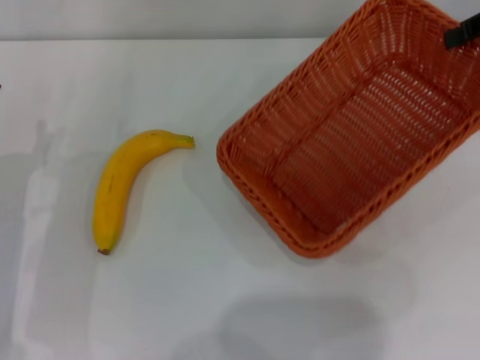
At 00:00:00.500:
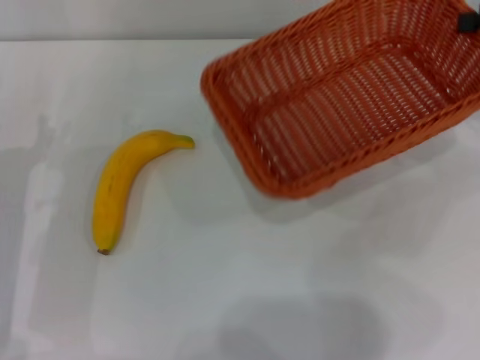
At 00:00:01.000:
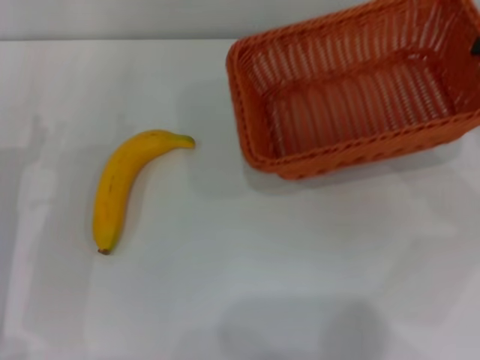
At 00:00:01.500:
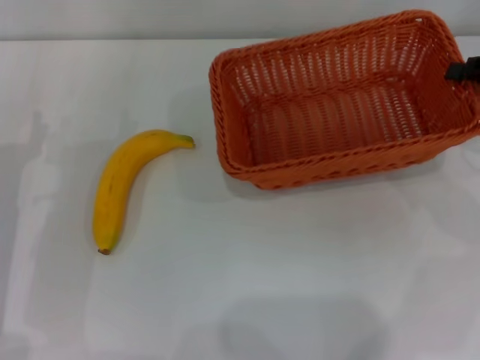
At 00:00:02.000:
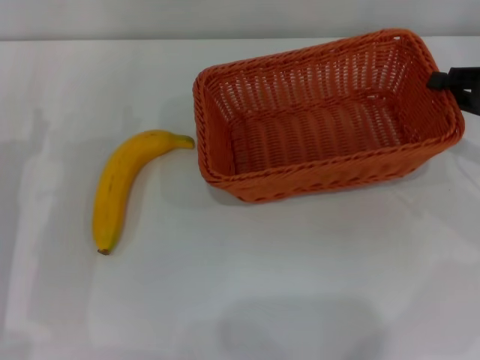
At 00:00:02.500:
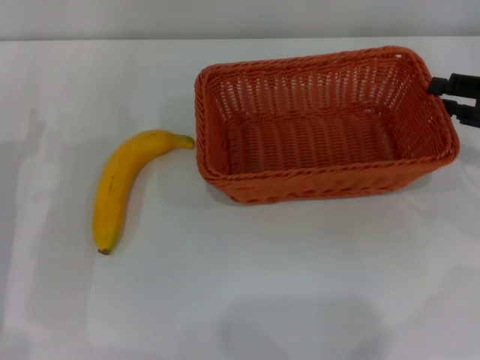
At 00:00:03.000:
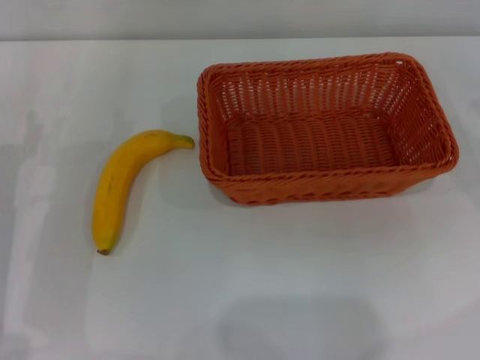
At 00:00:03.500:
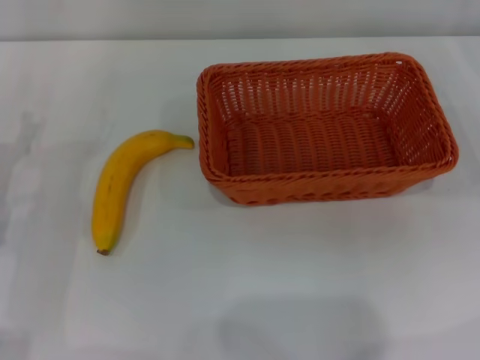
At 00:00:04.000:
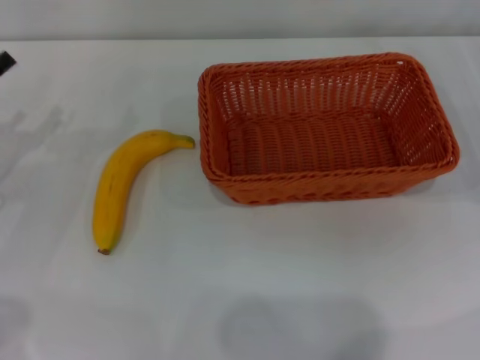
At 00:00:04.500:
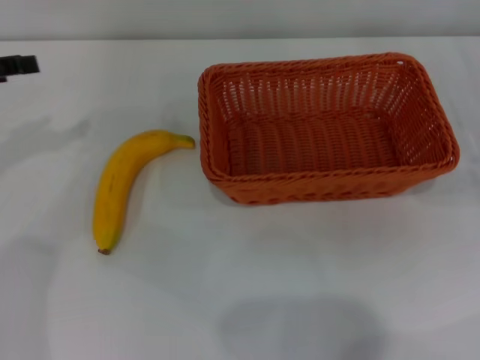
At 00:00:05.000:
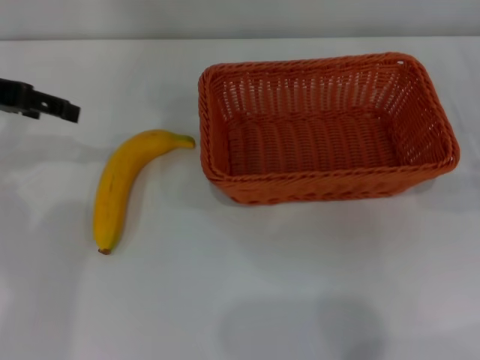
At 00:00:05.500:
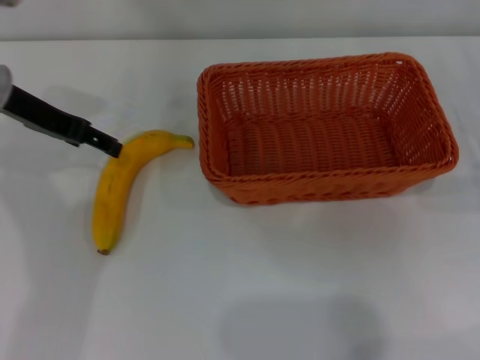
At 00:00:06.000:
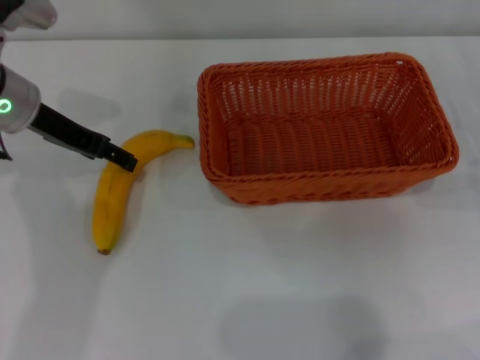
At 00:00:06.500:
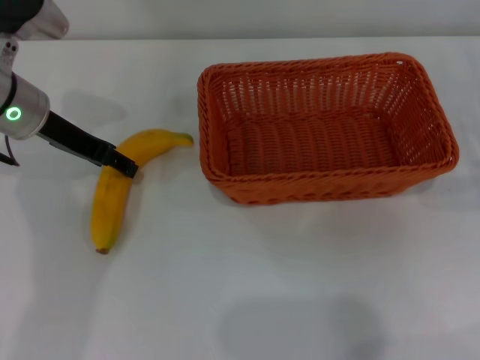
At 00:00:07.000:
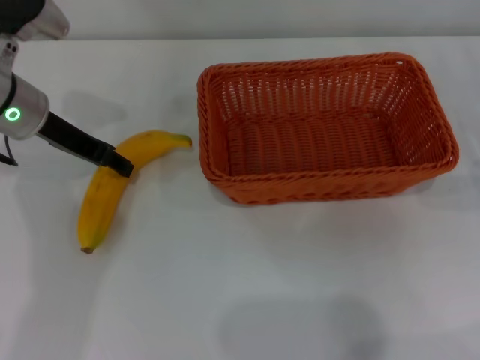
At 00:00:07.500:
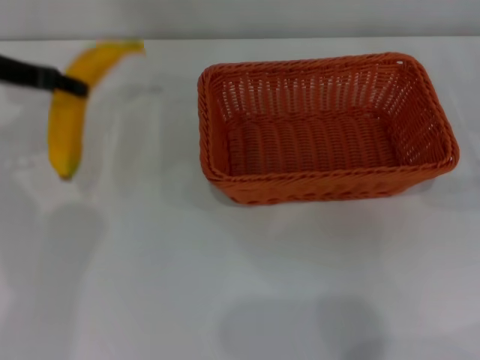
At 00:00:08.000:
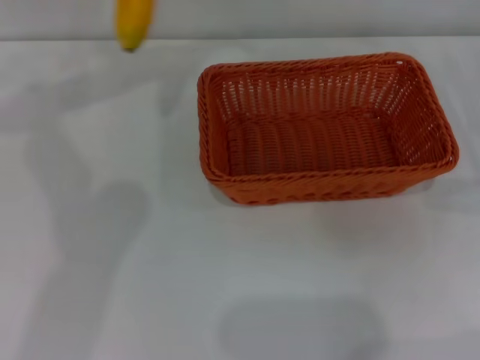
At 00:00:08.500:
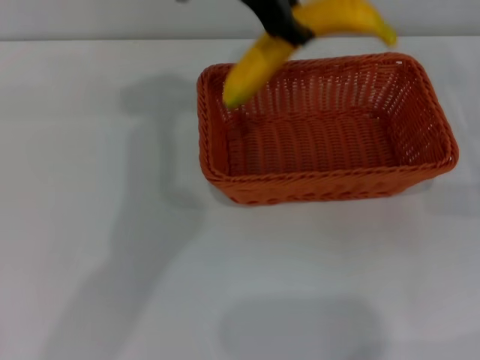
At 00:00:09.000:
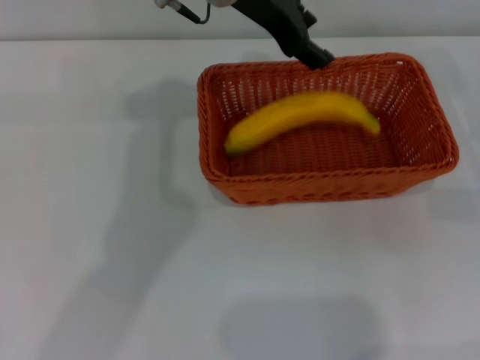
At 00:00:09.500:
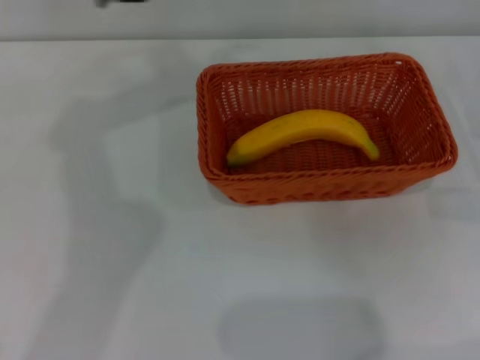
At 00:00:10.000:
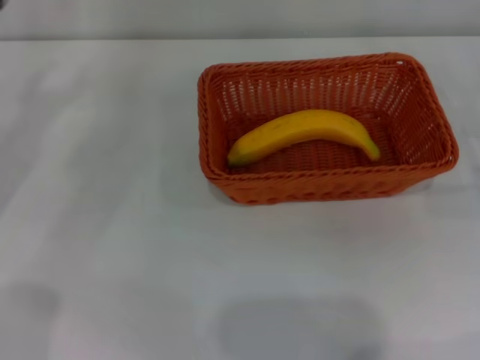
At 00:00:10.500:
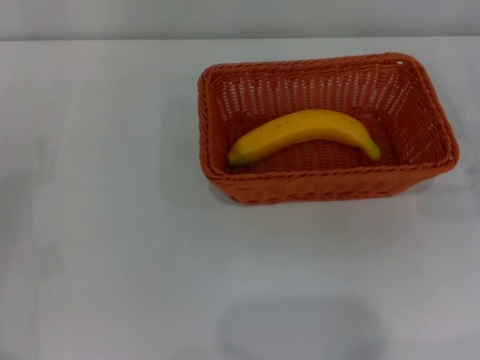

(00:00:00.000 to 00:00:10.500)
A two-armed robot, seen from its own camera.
Step, 00:00:00.000 - 00:00:02.500: Place the light basket in the center of view with the right gripper.
Step, 00:00:03.000 - 00:00:07.000: Pick up the banana with the left gripper.
Step, 00:00:07.500 - 00:00:09.000: Place the banana into the light basket with the left gripper.
00:00:00.000 - 00:00:02.000: The right gripper heads downward and backward, covering about 15 cm.
00:00:02.000 - 00:00:04.000: The right gripper shifts approximately 10 cm to the right and downward, and opens up, while the left gripper goes roughly 5 cm to the left.
00:00:04.000 - 00:00:06.500: The left gripper heads to the right, forward and upward, covering approximately 15 cm.
00:00:06.500 - 00:00:08.500: The left gripper moves to the right and upward, roughly 20 cm, and closes up.
00:00:08.500 - 00:00:10.500: The left gripper heads to the left, downward and backward, covering approximately 40 cm, and opens.

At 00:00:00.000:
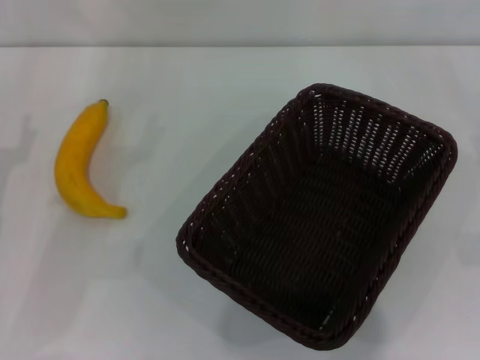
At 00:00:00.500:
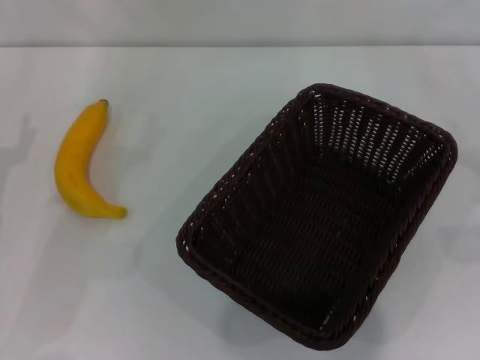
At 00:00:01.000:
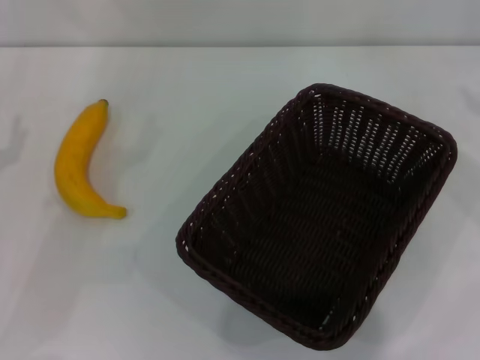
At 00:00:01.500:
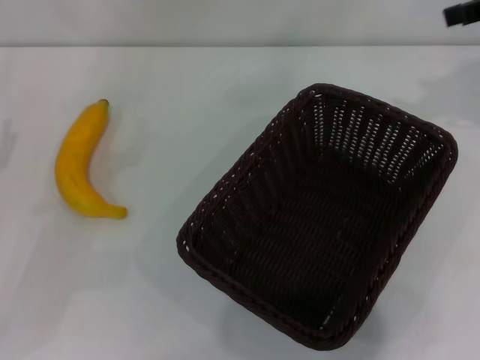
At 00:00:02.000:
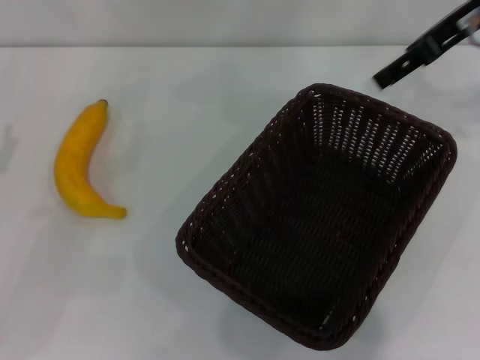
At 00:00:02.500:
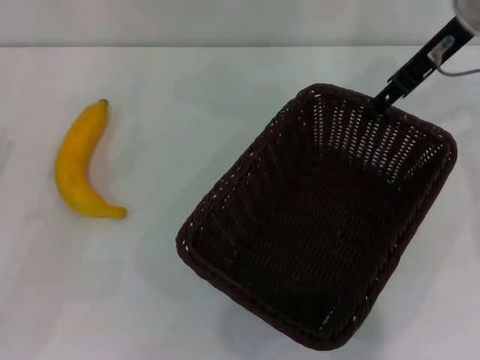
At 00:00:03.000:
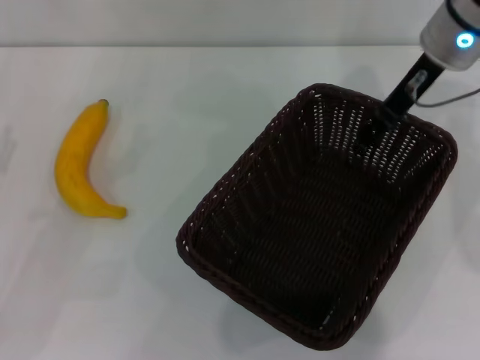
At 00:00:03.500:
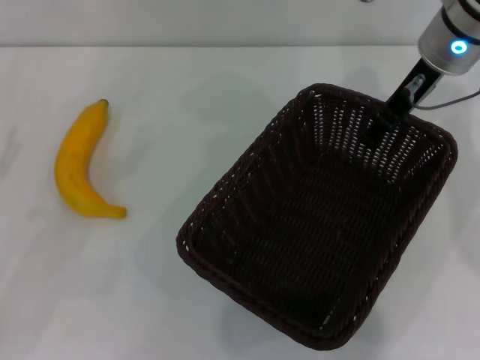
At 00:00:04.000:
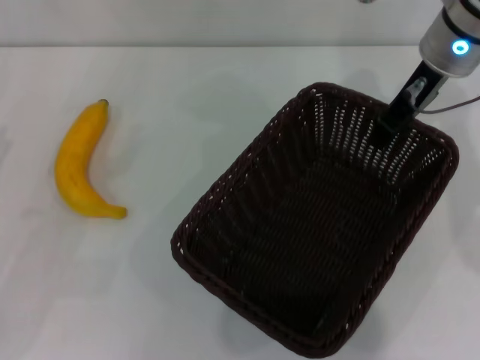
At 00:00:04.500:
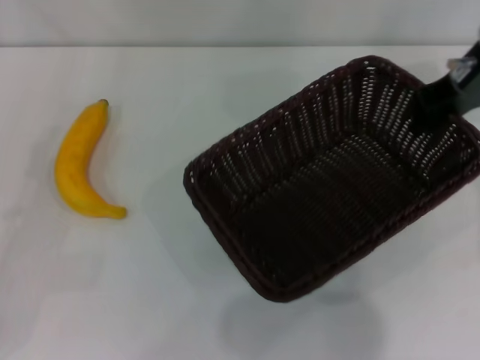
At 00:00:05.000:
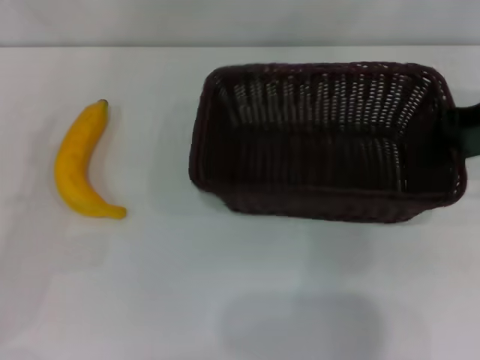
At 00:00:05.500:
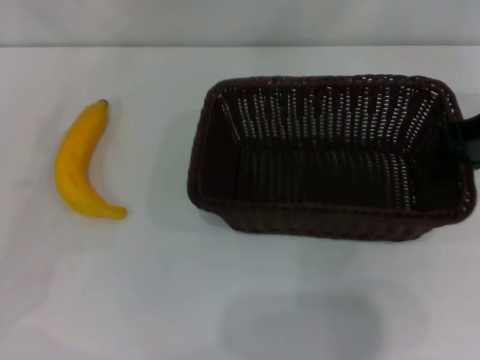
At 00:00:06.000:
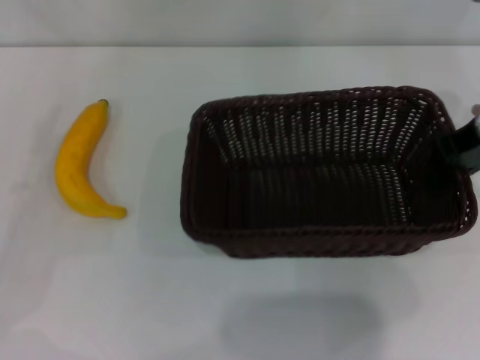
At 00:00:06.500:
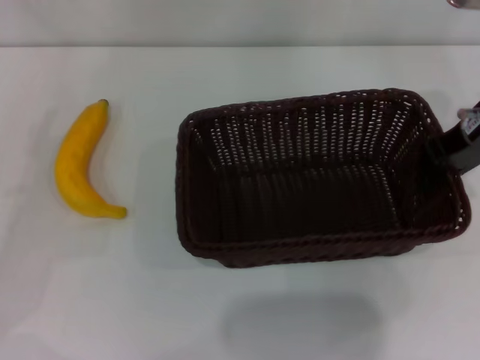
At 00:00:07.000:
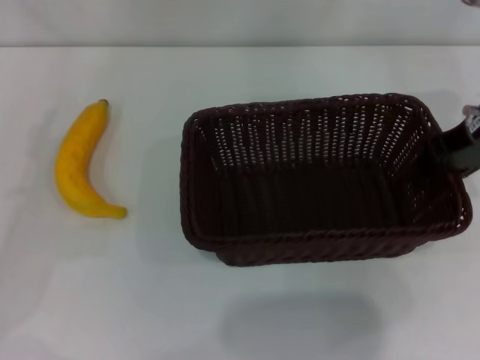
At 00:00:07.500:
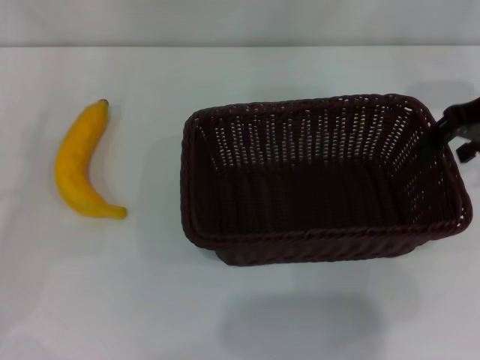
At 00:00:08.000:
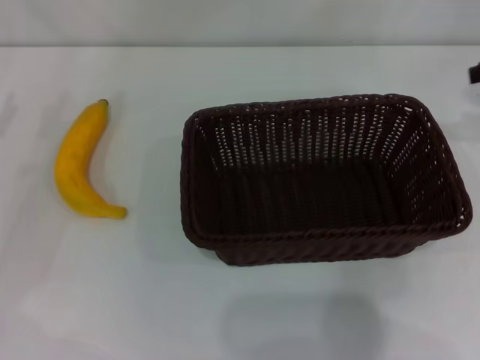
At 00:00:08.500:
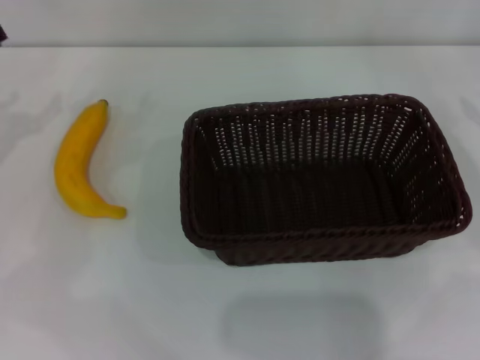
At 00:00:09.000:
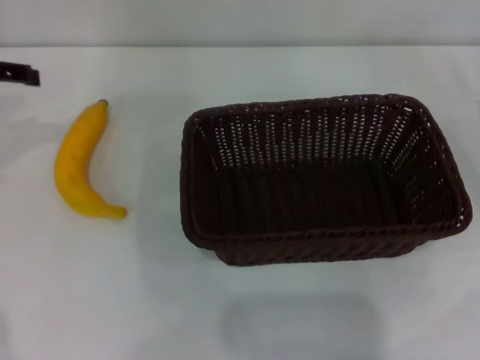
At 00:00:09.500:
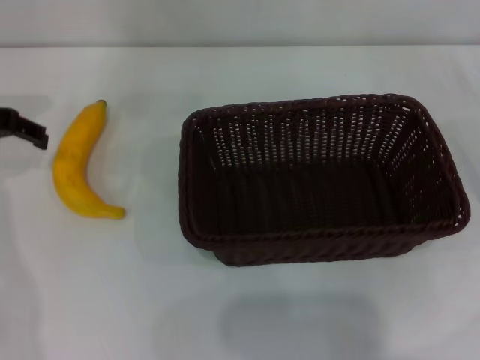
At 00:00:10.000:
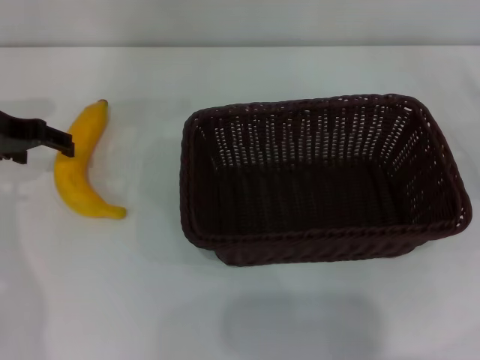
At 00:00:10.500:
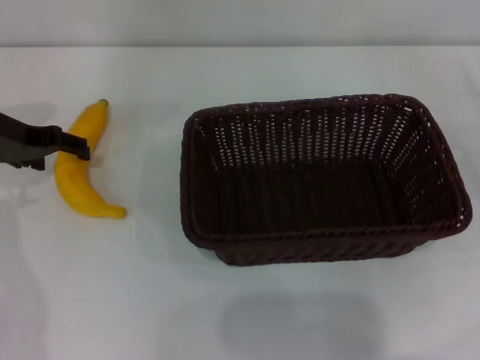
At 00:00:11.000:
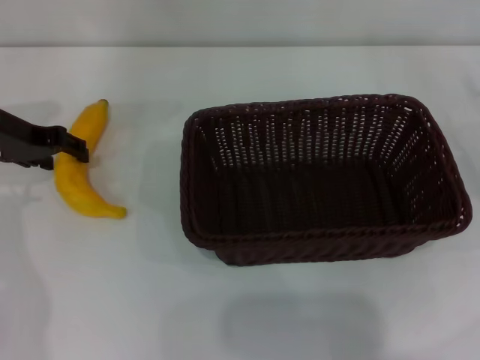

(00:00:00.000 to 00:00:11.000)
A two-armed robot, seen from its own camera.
Step, 00:00:00.000 - 00:00:04.500: Pick up the dark basket with the right gripper.
Step, 00:00:05.000 - 00:00:07.500: Place the dark basket in the center of view with the right gripper.
00:00:00.000 - 00:00:02.000: The right gripper shifts about 35 cm upward, to the left and forward.
00:00:02.000 - 00:00:03.500: The right gripper travels downward and to the left by about 10 cm.
00:00:03.500 - 00:00:05.500: The left gripper shifts by roughly 5 cm, while the right gripper travels to the right and backward by some 10 cm, and closes its fingers.
00:00:05.500 - 00:00:07.500: The right gripper opens its fingers.
00:00:07.500 - 00:00:09.000: The right gripper travels to the right and downward by approximately 20 cm.
00:00:09.000 - 00:00:11.000: The left gripper moves downward and to the right, roughly 10 cm.

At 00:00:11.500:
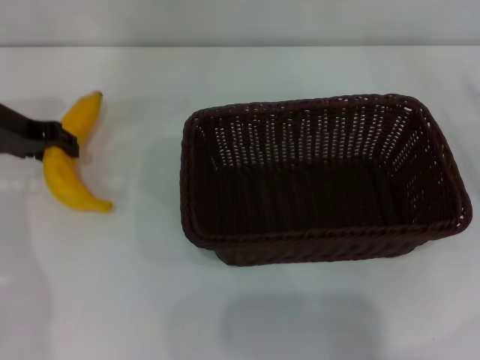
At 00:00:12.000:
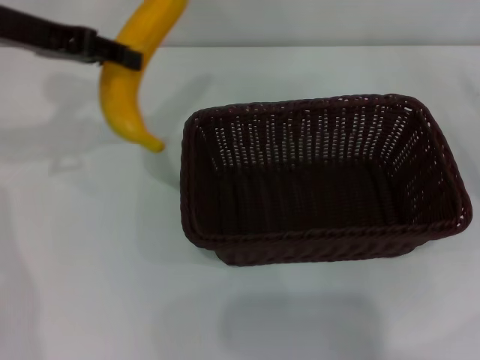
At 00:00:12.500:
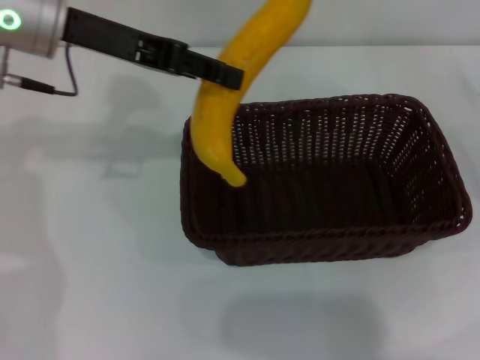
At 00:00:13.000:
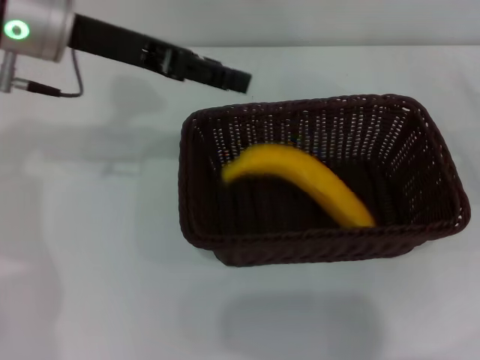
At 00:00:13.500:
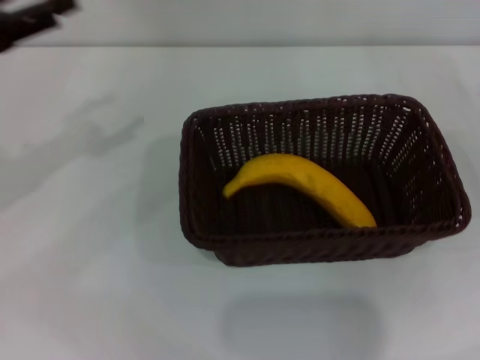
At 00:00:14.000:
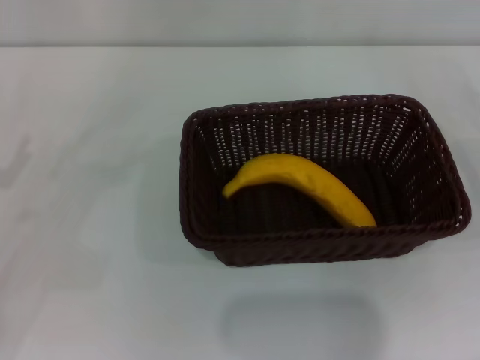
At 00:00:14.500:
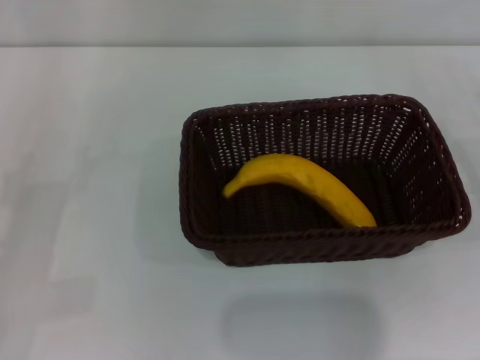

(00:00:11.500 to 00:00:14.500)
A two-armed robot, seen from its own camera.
Step, 00:00:12.000 - 00:00:13.000: Place the banana into the dark basket with the left gripper.
00:00:11.500 - 00:00:13.000: The left gripper heads upward and to the right, covering some 10 cm, and opens.
00:00:13.000 - 00:00:14.500: The left gripper moves downward, backward and to the left, roughly 30 cm, and opens.
